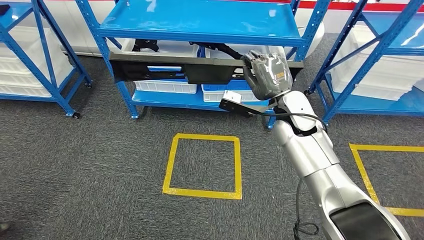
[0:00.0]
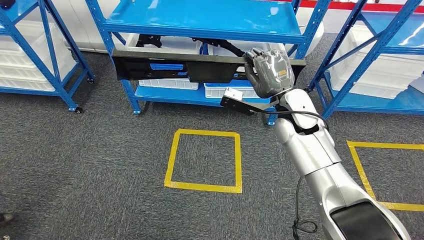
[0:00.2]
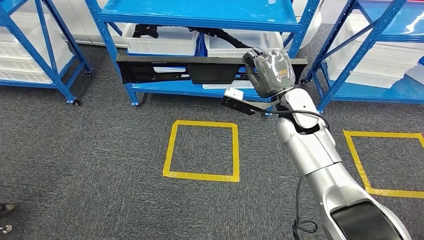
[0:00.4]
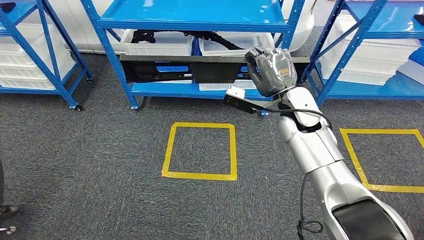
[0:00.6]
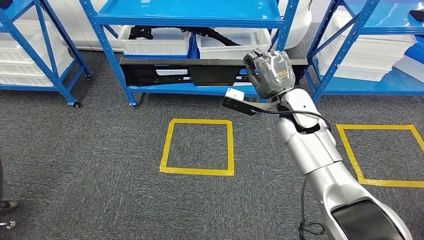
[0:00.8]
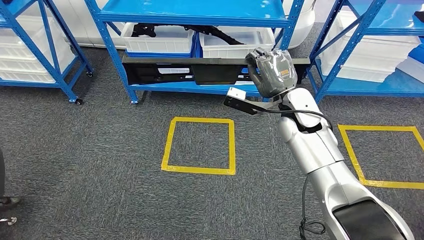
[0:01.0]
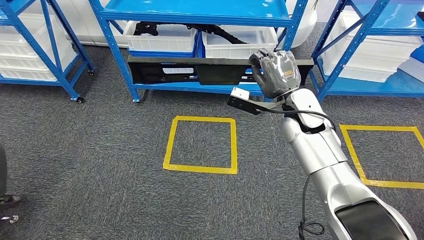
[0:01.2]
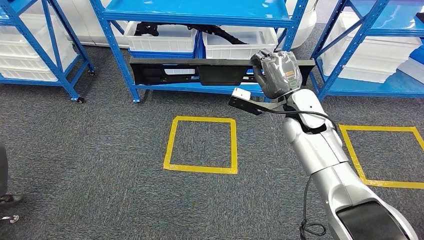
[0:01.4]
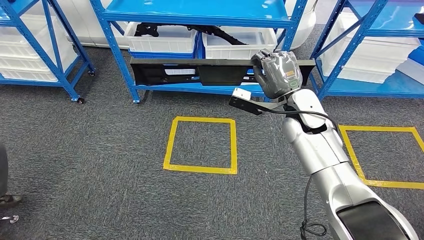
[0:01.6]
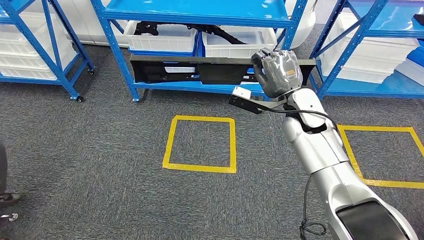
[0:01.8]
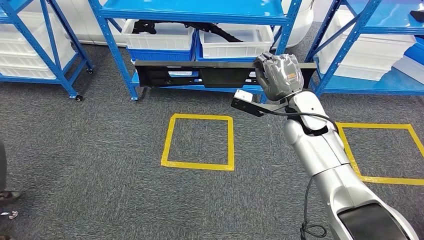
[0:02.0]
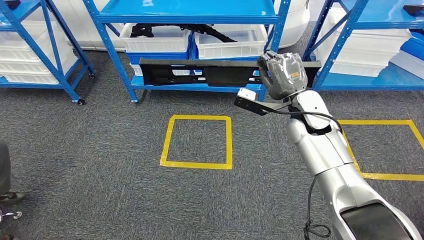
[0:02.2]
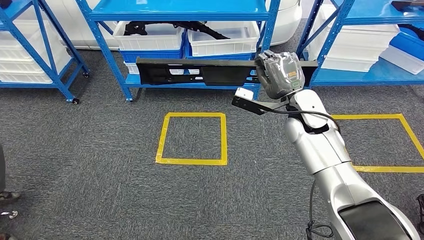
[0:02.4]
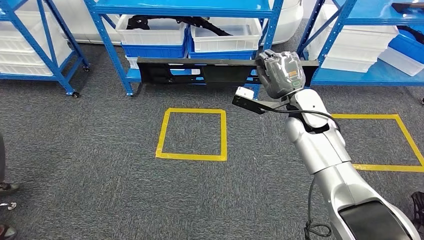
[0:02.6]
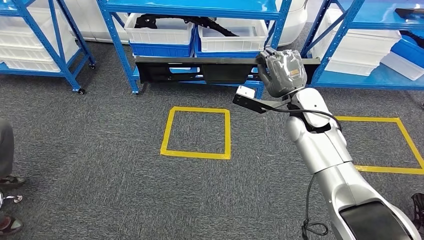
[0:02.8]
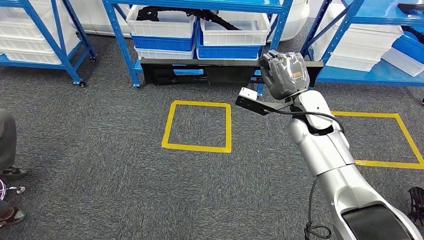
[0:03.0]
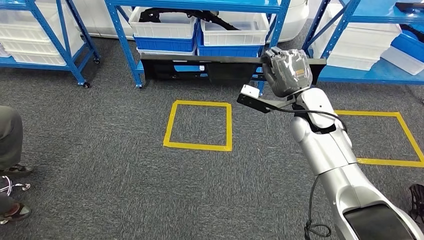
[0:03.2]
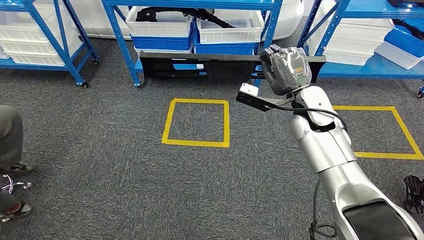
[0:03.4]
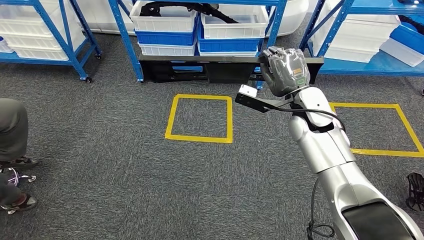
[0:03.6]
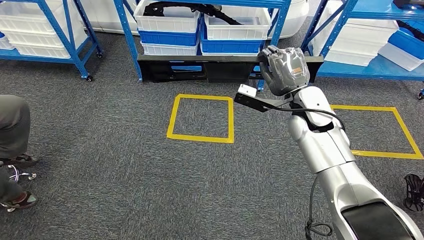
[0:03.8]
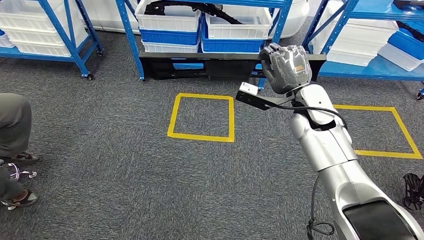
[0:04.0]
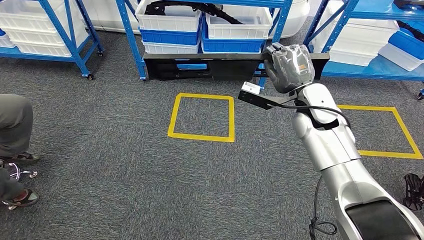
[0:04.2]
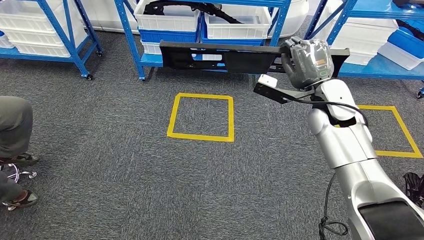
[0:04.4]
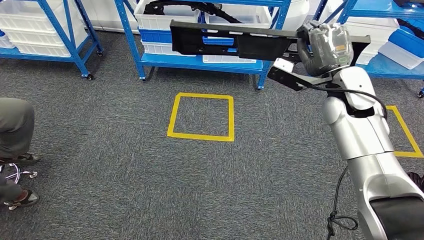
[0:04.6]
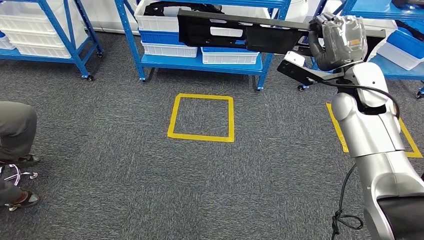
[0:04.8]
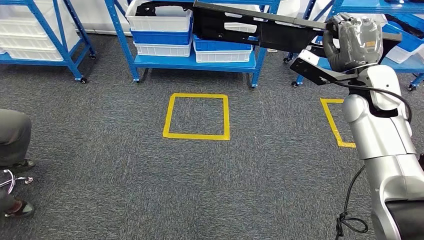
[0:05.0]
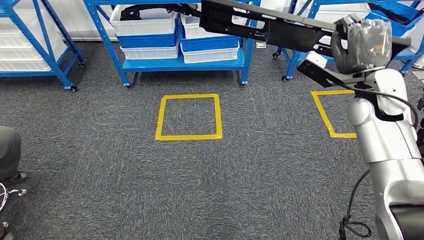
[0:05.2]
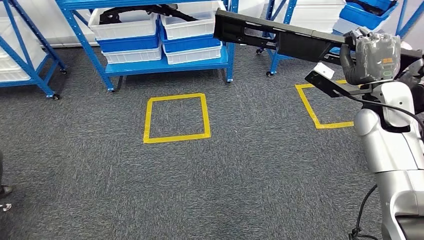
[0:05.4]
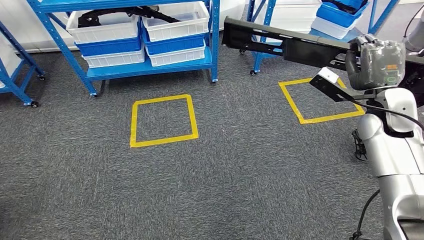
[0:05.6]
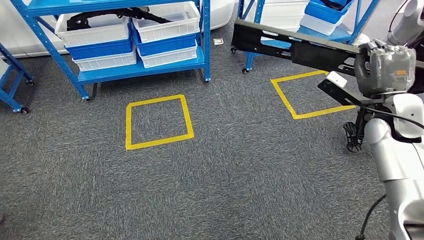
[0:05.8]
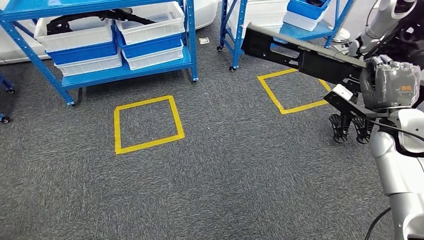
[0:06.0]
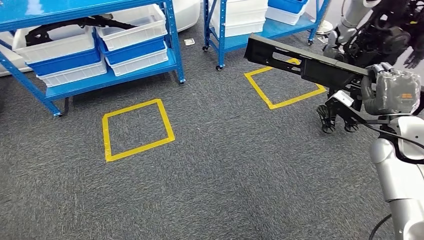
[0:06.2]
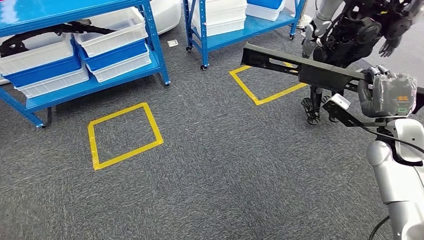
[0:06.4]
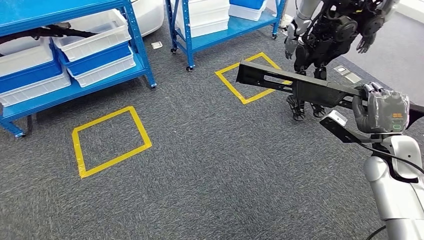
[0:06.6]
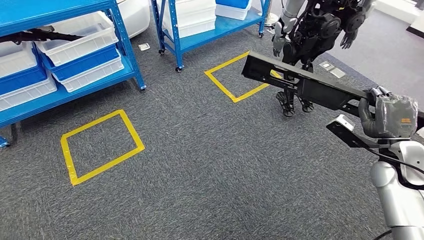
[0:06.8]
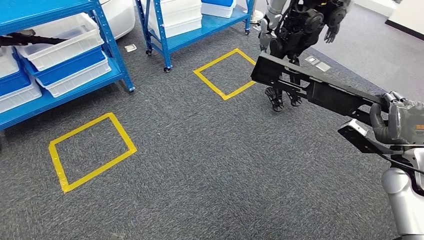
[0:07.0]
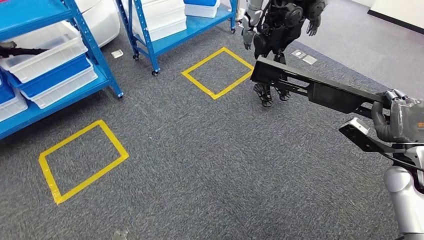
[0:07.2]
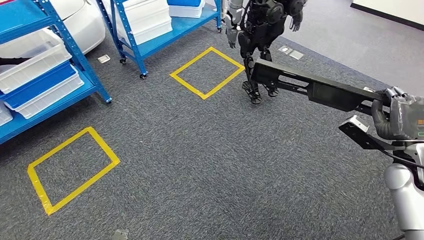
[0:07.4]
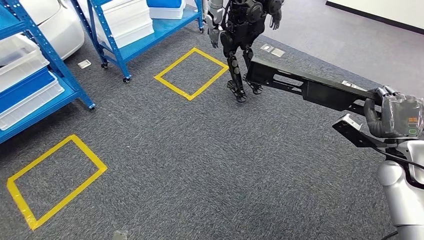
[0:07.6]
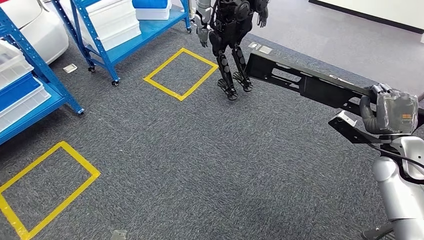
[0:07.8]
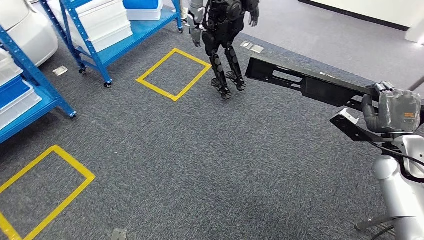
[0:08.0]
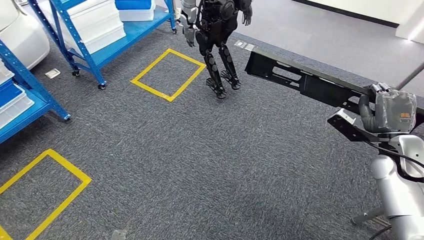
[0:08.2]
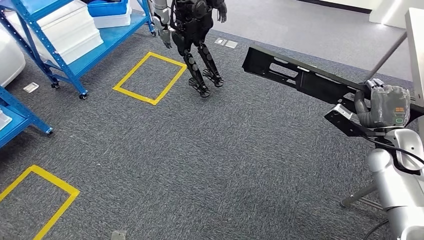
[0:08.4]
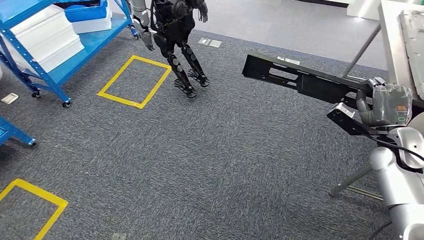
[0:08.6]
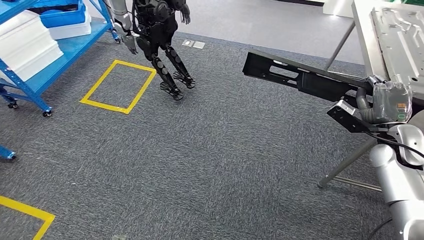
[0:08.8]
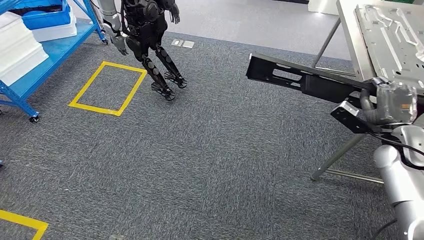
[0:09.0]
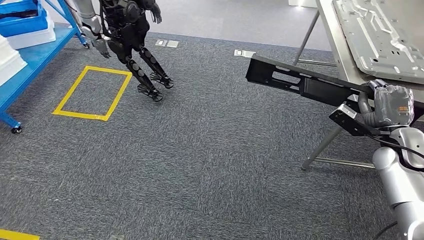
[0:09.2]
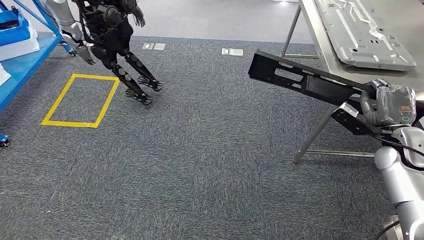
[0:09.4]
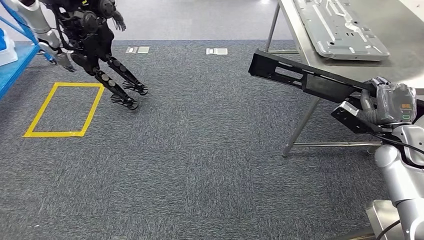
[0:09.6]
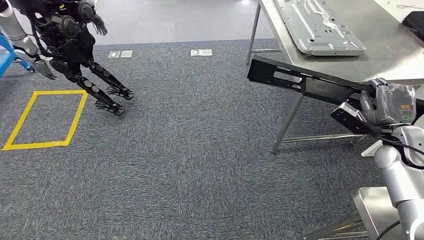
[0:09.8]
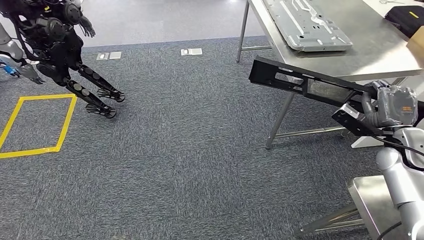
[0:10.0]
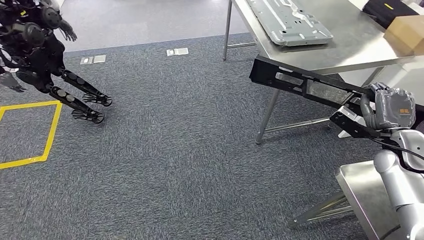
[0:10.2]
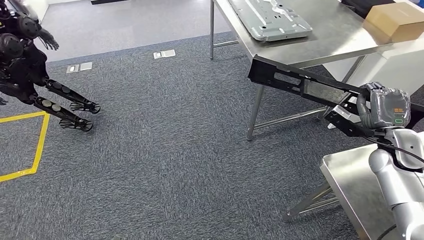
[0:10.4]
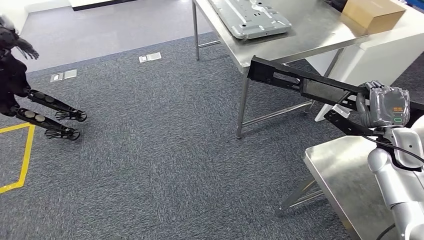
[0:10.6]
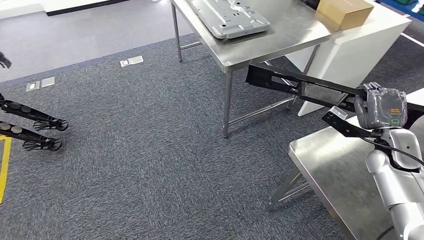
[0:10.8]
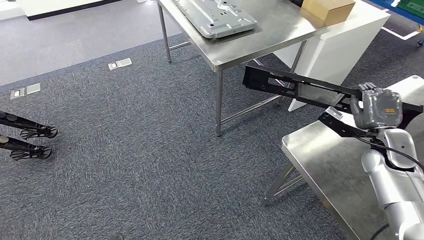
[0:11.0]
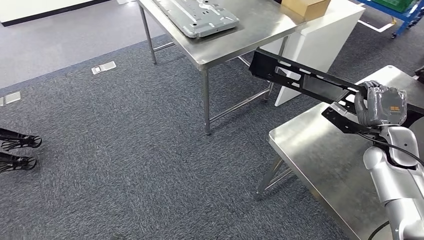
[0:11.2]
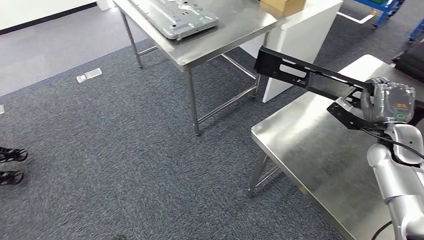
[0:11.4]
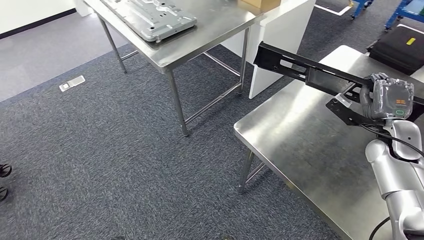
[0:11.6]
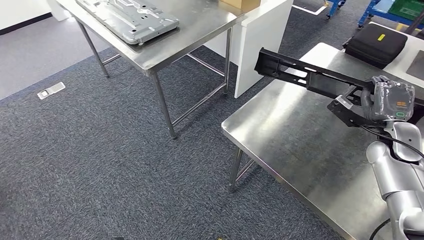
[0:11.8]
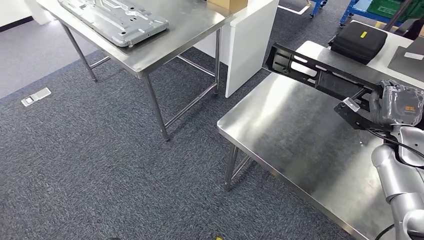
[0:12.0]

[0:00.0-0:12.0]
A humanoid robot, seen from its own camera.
Step, 0:00.0 to 0:10.8: Move the large material to the workbench.

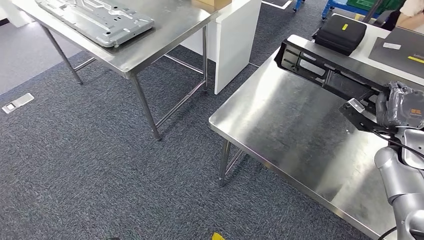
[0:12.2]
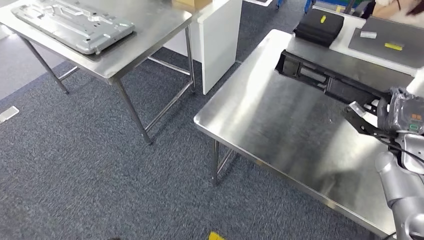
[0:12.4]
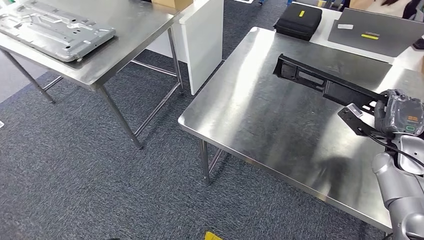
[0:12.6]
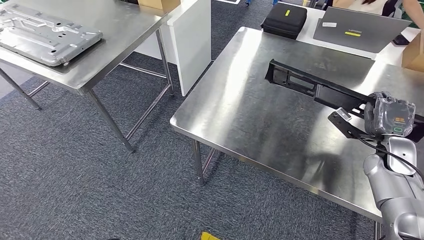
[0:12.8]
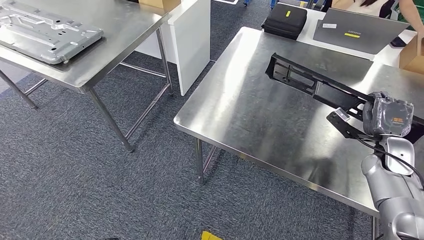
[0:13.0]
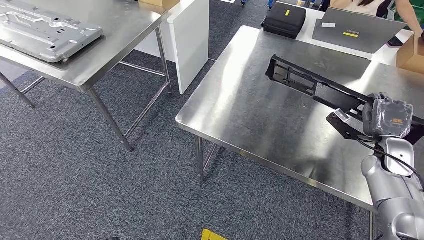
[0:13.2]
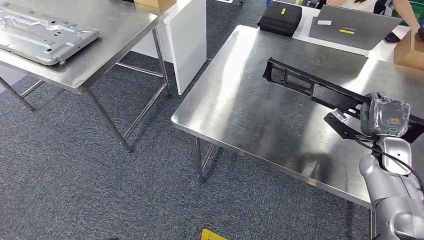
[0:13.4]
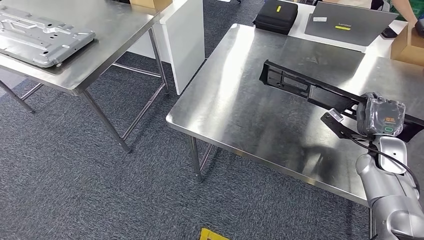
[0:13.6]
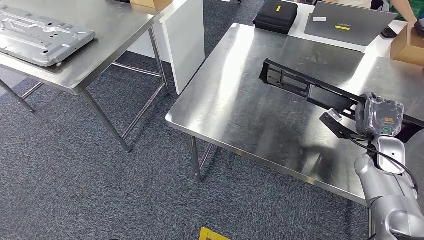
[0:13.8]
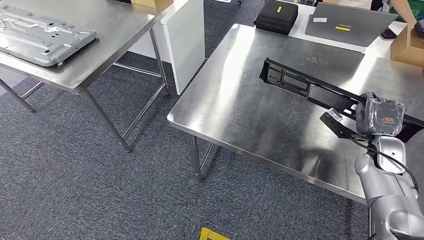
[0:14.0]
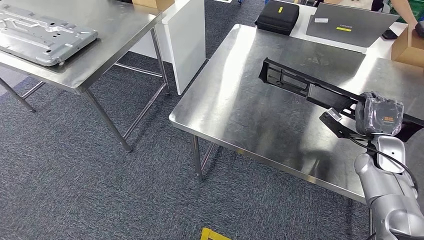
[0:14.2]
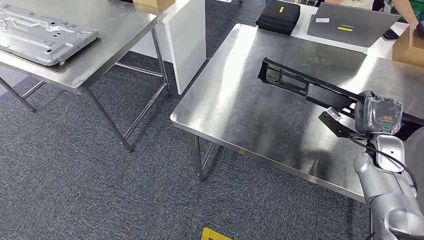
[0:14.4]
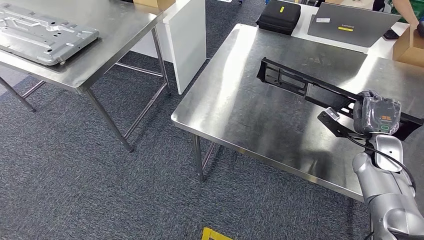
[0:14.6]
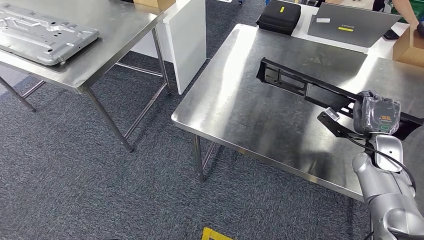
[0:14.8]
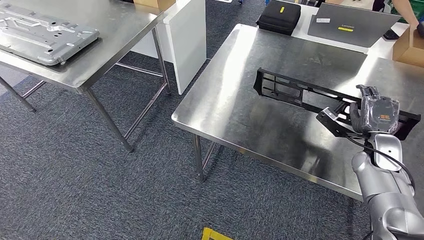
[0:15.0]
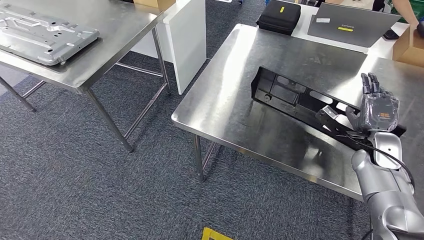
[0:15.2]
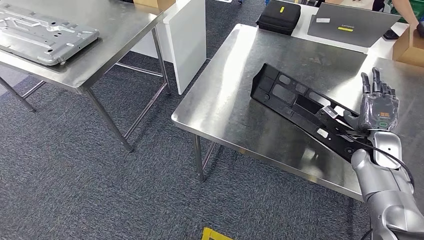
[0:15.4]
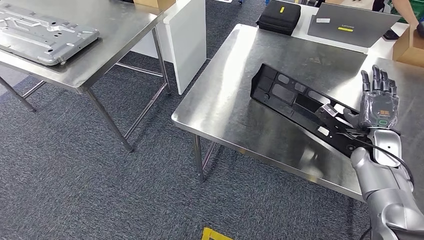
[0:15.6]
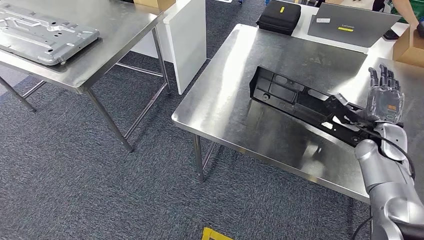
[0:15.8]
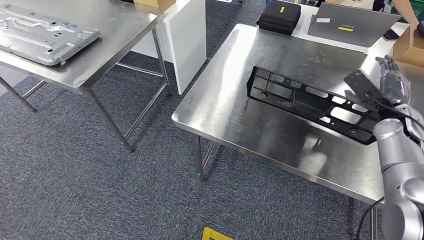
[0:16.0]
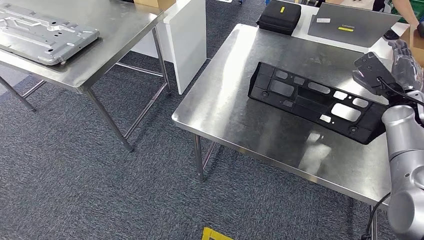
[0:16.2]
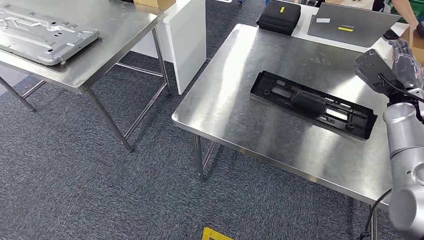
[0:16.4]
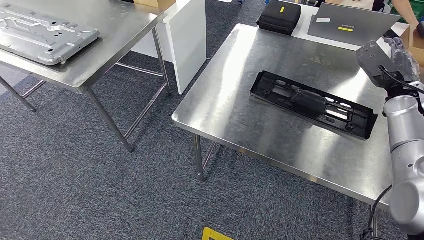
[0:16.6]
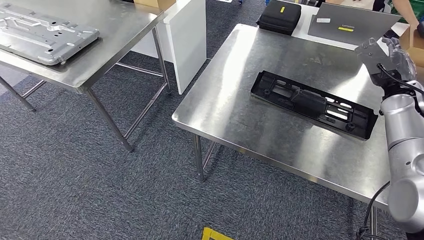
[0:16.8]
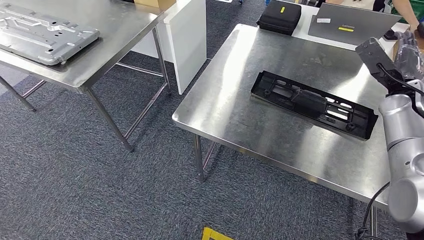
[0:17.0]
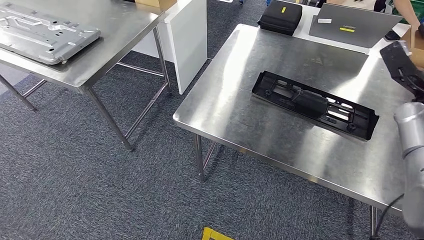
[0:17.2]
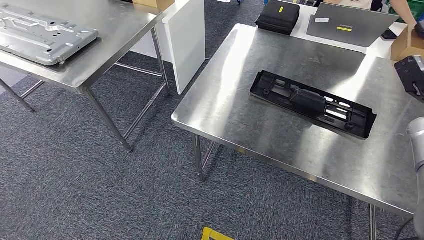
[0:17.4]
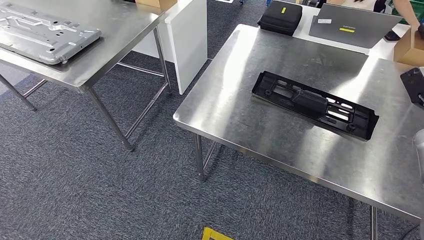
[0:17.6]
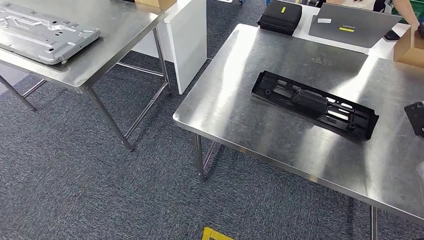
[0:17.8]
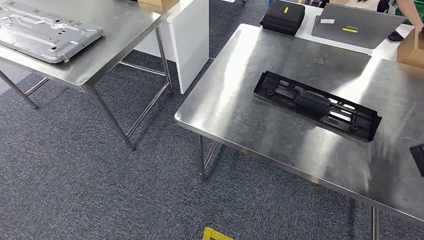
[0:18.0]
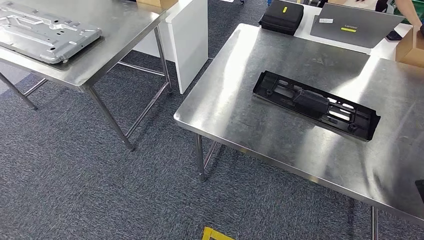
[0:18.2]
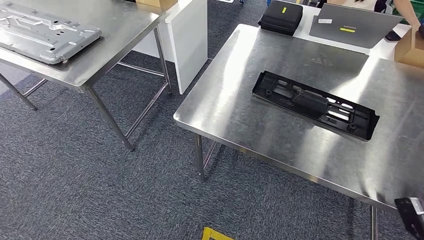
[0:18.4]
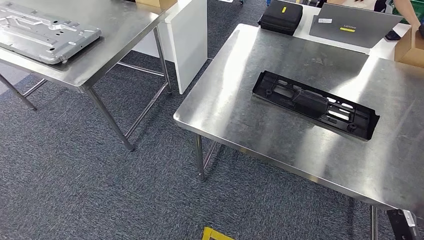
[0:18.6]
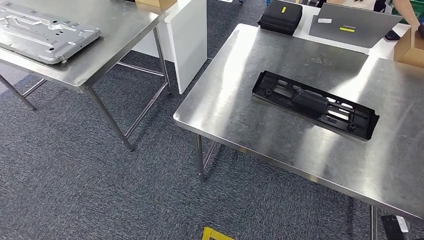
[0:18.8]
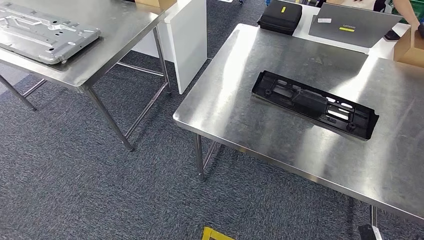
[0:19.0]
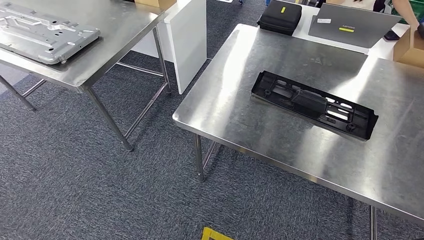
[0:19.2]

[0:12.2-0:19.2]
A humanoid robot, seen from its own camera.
0:13.6 to 0:15.0: There are only small adjustments of the hands.
0:15.0 to 0:16.4: The right hand shifts about 10 cm upward and forward.
0:16.4 to 0:17.8: The right hand travels to the right, backward and downward by some 15 cm.
0:17.8 to 0:19.2: The right hand travels downward, backward and to the left by roughly 40 cm.
